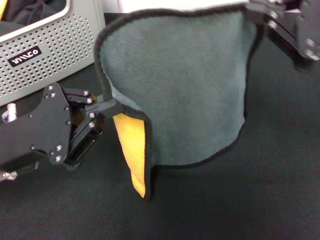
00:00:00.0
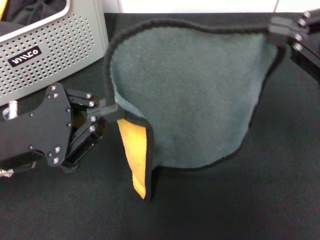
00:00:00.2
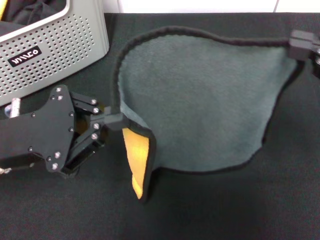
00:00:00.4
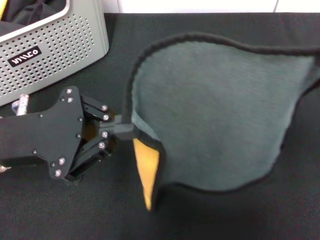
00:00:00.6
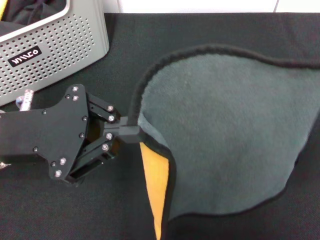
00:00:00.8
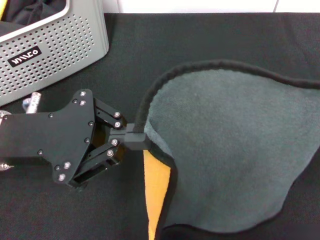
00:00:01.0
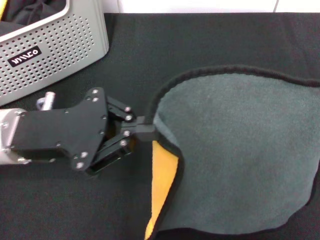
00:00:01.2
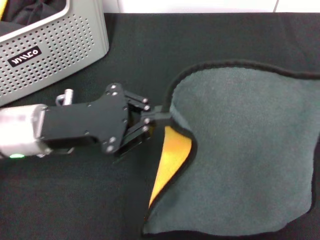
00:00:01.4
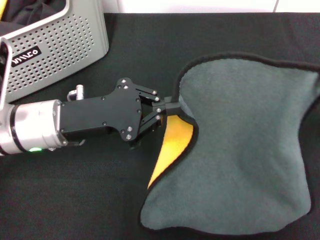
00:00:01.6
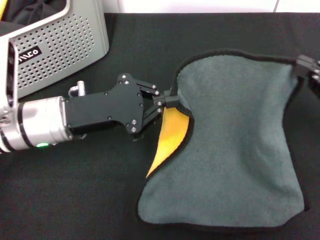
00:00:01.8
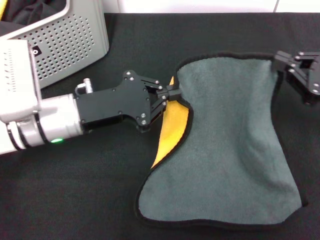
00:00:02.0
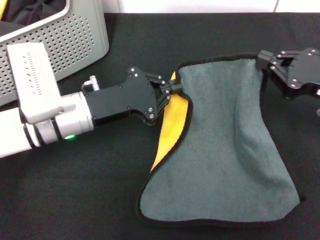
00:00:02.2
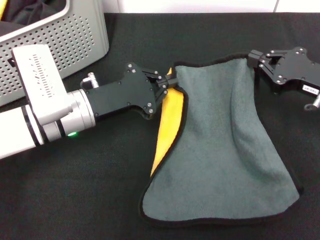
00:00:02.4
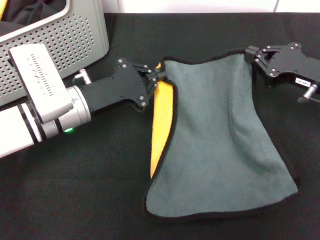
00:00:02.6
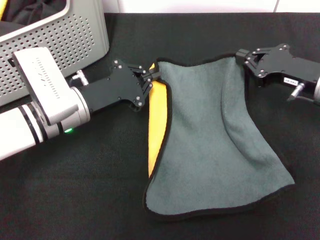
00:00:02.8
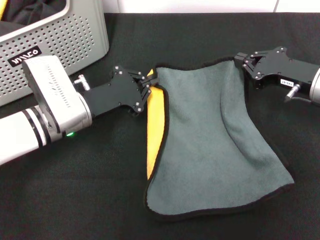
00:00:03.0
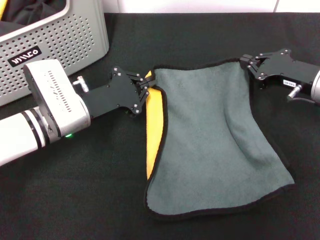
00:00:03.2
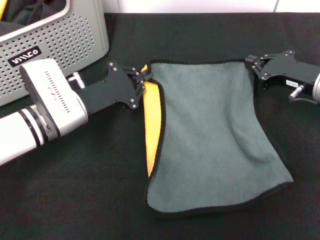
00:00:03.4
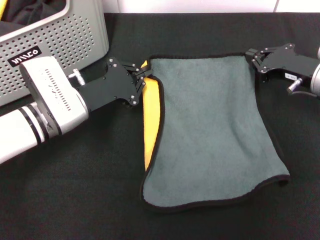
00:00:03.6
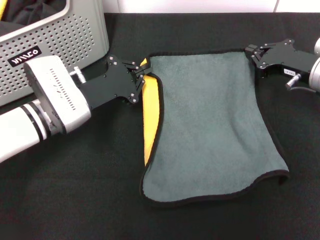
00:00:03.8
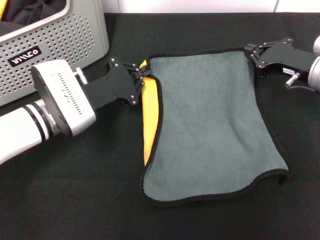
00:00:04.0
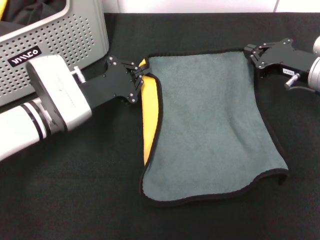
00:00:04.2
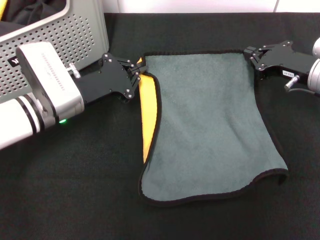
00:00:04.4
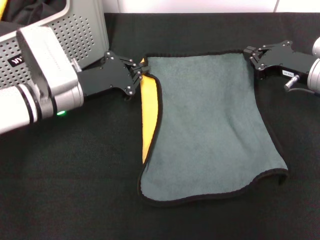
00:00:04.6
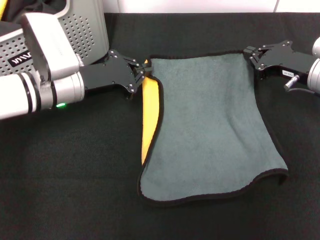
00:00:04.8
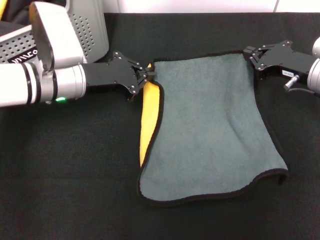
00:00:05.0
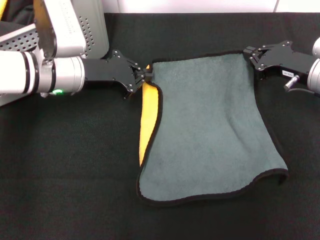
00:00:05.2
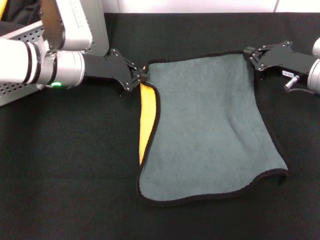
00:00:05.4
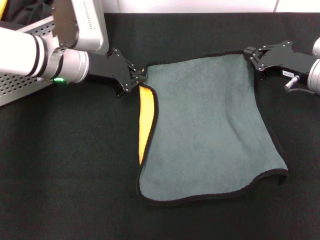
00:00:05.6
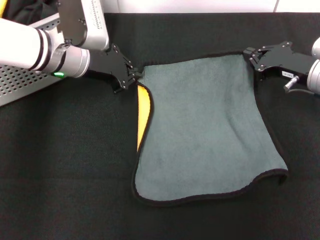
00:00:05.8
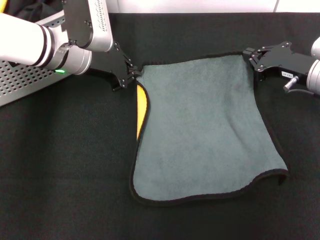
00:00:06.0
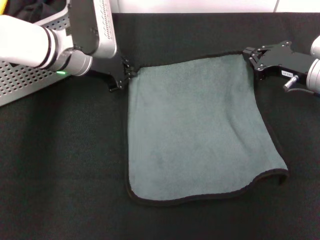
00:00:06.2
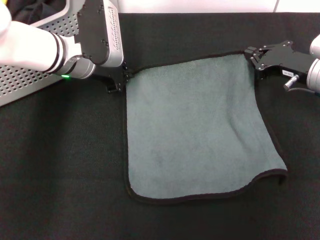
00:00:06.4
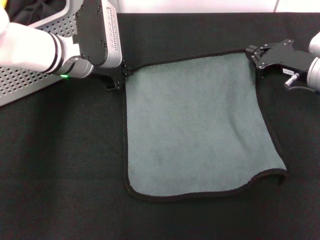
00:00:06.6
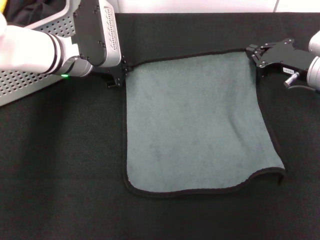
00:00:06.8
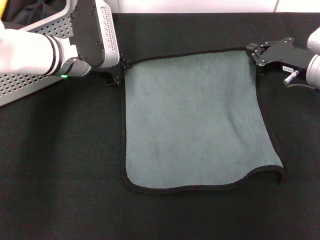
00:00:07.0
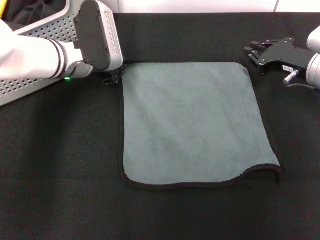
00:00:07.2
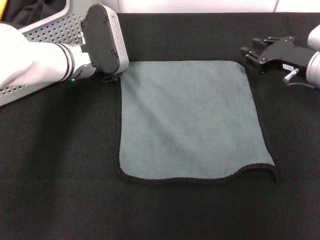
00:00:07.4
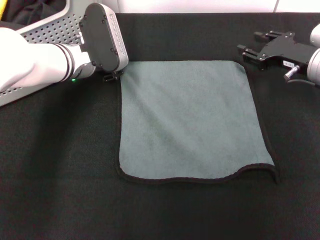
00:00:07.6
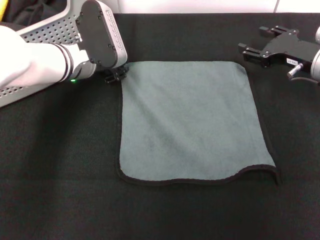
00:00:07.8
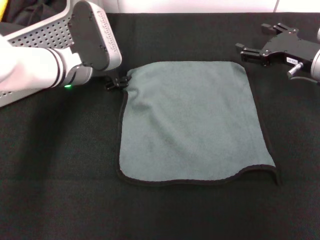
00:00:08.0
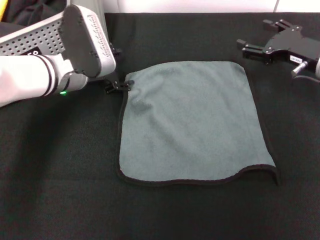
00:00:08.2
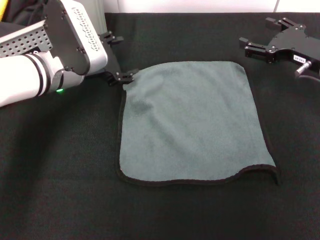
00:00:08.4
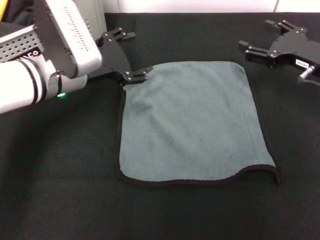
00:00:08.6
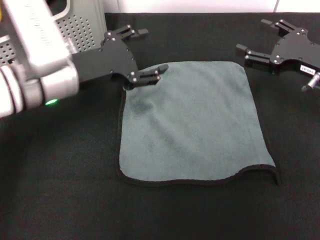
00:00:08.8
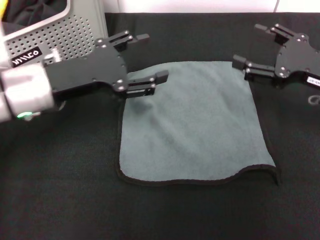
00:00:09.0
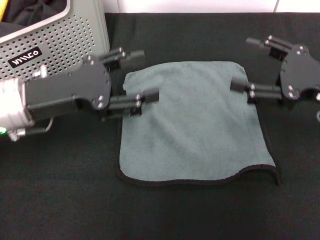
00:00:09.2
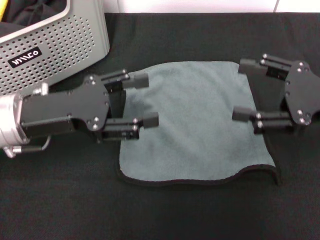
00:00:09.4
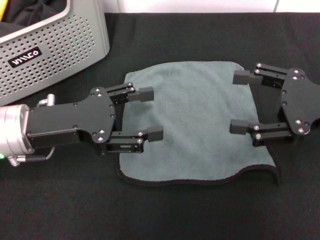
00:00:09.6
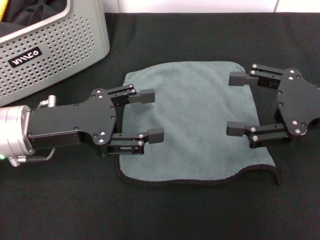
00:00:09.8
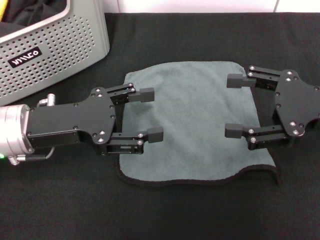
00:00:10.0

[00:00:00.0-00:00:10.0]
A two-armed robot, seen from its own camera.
Task of the whole recording: pick up the towel from the storage box and lay it flat on the black tablecloth.
Step, 00:00:00.0 to 00:00:07.0: Spread the towel flat with the right gripper.
00:00:00.0 to 00:00:01.4: The left gripper shifts by approximately 5 cm; the right gripper is displaced to the right and downward by approximately 15 cm.
00:00:01.4 to 00:00:02.8: The right gripper shifts approximately 20 cm forward, to the left and downward, while the left gripper shifts about 10 cm downward and forward.
00:00:02.8 to 00:00:04.2: The grippers make only small movements.
00:00:04.2 to 00:00:05.8: The left gripper heads forward and upward, covering roughly 10 cm.
00:00:05.8 to 00:00:07.2: The grippers move only a little.
00:00:07.2 to 00:00:08.6: The right gripper opens, while the left gripper heads backward, covering approximately 5 cm, and opens up.
00:00:08.6 to 00:00:10.0: The left gripper travels backward by approximately 10 cm, while the right gripper heads backward and upward, covering about 10 cm.

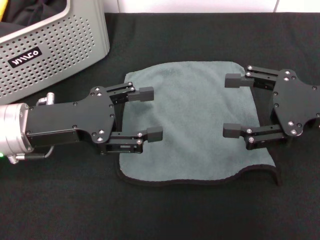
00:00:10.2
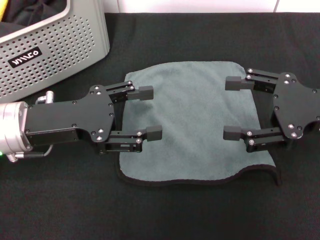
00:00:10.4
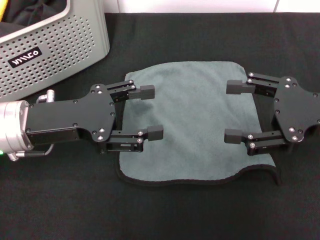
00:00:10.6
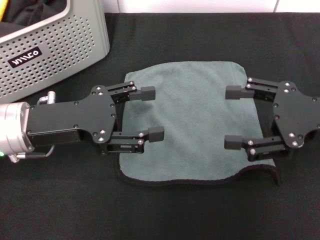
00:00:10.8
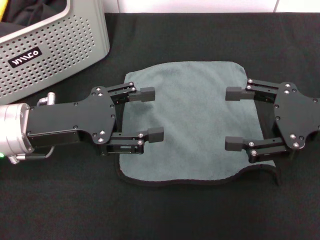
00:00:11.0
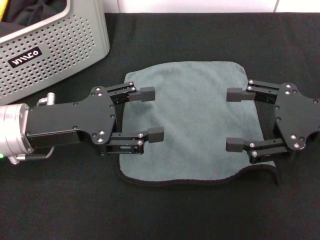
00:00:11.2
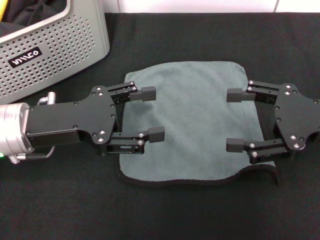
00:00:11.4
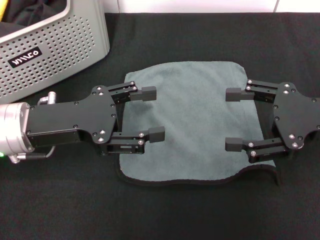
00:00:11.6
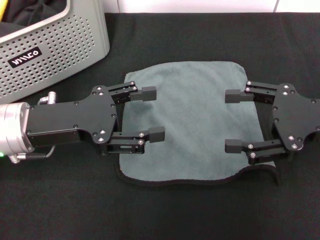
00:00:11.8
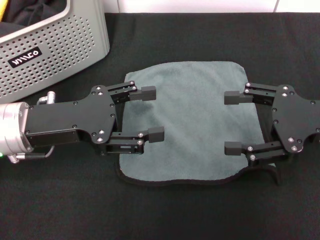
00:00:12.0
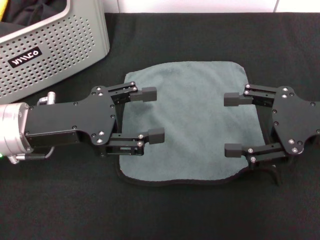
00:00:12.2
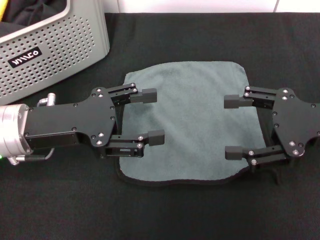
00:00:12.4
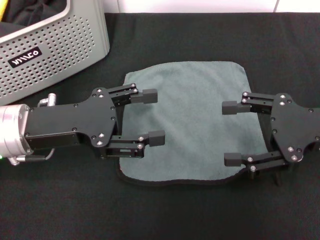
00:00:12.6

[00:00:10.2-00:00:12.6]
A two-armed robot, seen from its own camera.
Task of the whole recording: pick up the towel from the storage box and lay it flat on the black tablecloth.
00:00:10.2 to 00:00:11.4: Neither gripper changes place.
00:00:11.4 to 00:00:12.6: Both grippers stay put.
